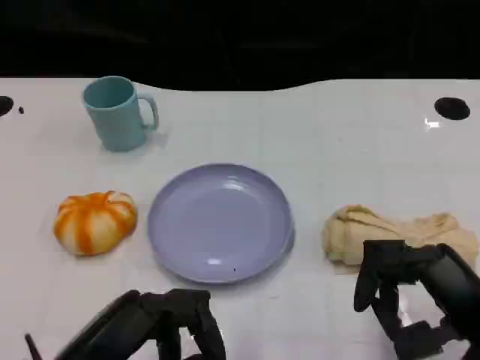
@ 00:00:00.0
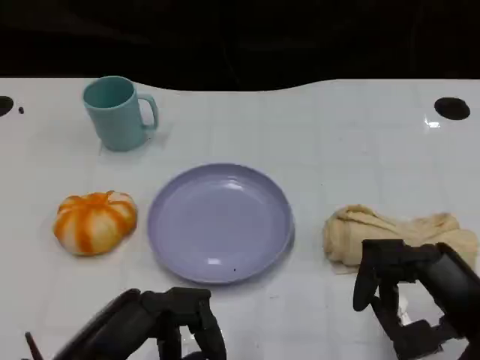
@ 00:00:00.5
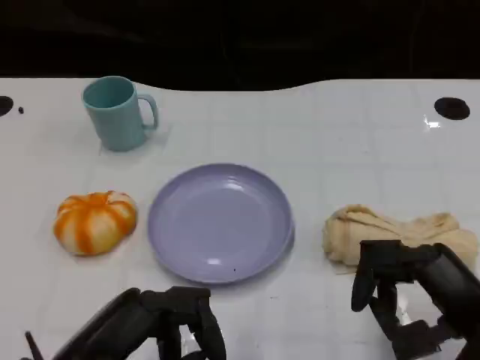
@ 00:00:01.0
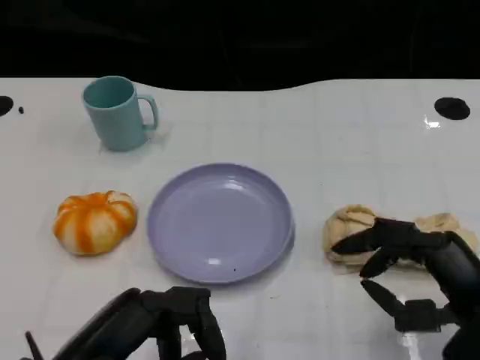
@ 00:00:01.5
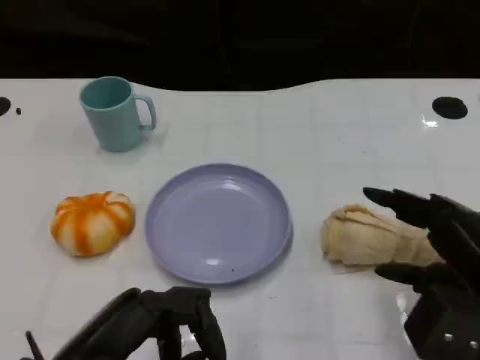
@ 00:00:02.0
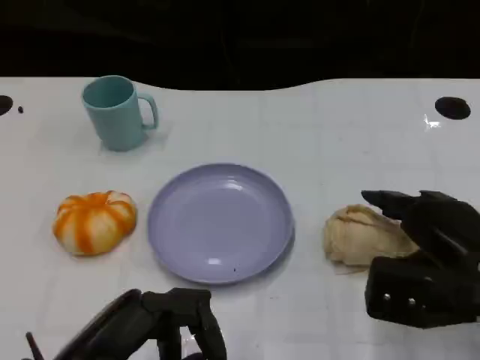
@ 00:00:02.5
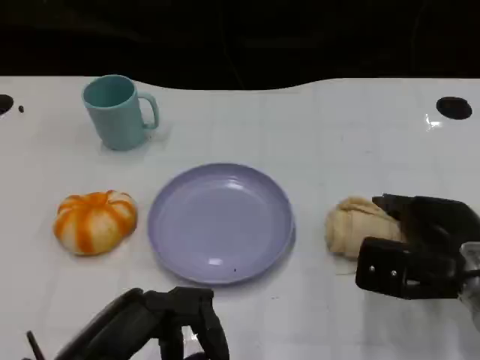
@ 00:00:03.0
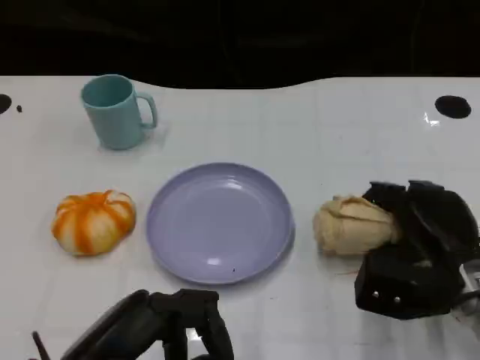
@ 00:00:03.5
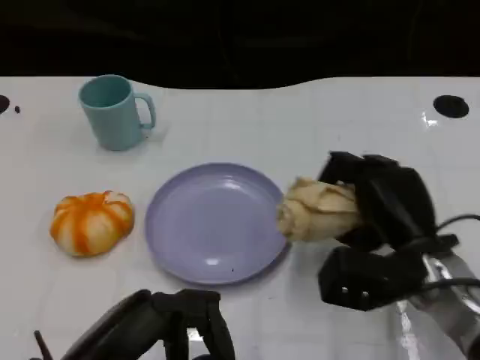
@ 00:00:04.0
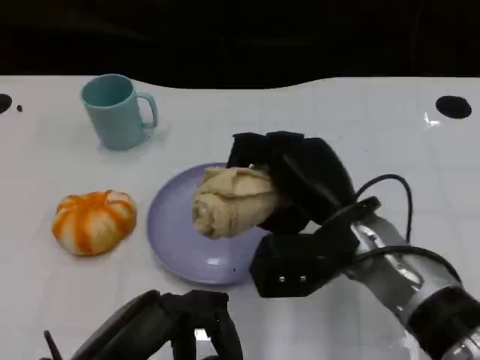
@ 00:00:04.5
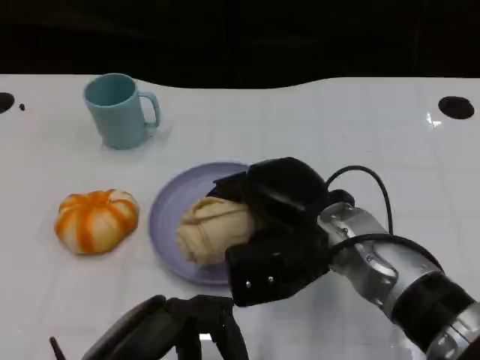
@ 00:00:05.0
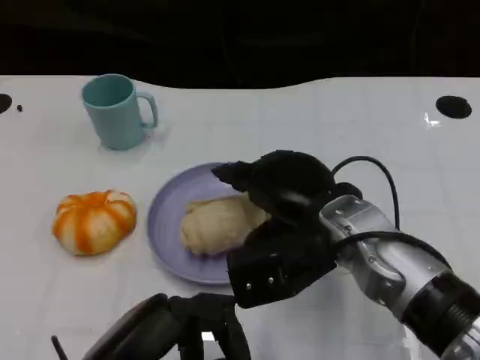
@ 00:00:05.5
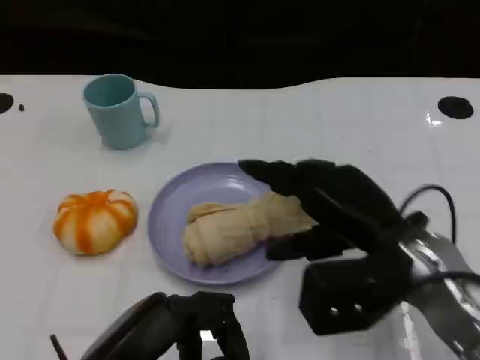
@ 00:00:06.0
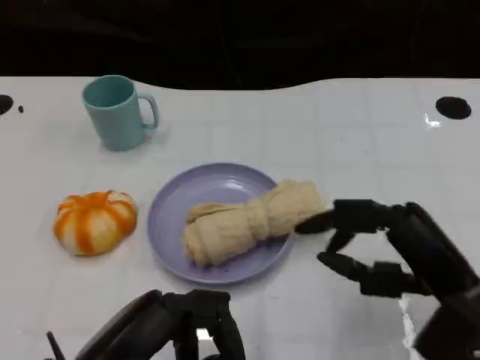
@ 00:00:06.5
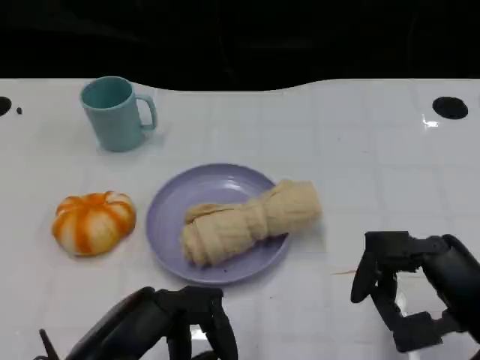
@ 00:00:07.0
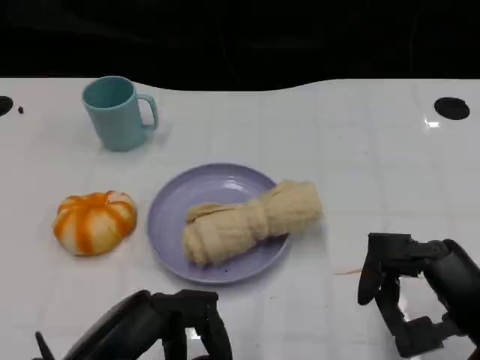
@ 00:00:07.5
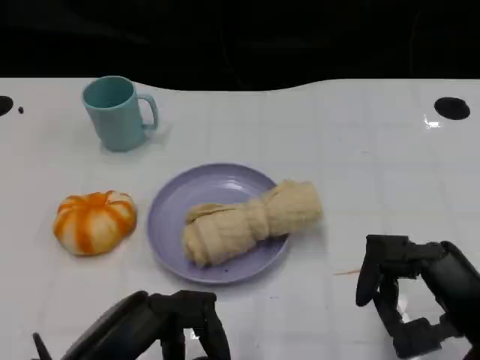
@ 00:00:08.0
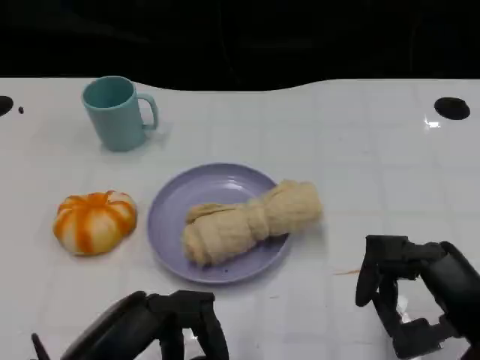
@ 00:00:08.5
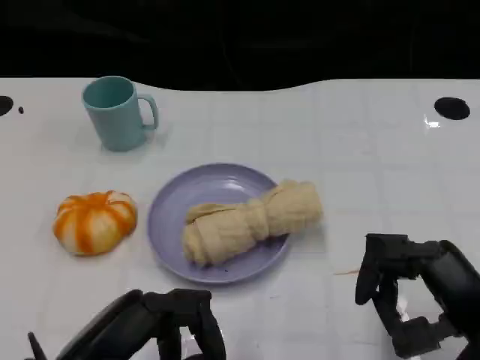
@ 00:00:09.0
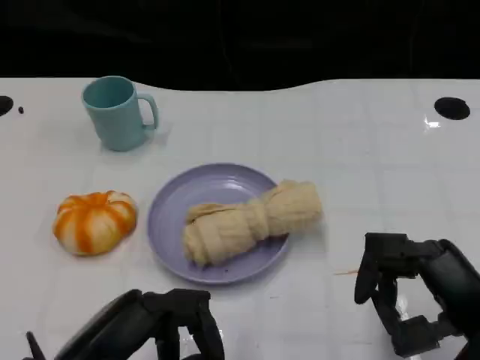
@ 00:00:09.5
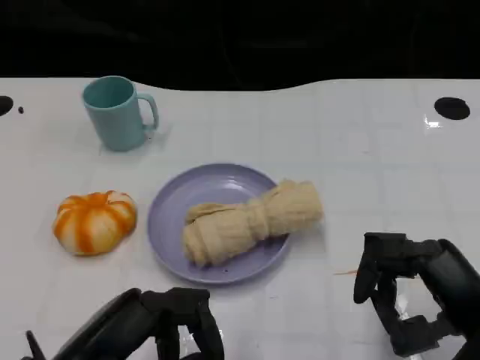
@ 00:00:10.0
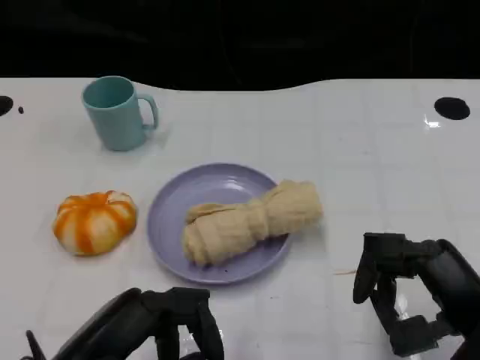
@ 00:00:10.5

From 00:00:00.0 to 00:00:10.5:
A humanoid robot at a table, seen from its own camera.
Task of the whole recording: Grasp the towel on the left side of the plate with the left hand and place it into the plate.
From 00:00:02.0 to 00:00:04.0: The right hand travels to the left and forward by roughly 10 cm.
From 00:00:04.0 to 00:00:06.5: The right hand heads backward and to the right, covering approximately 10 cm.
From 00:00:06.5 to 00:00:08.5: The hands stay close to where they were, moving slightly.
From 00:00:08.5 to 00:00:10.5: Both hands stay about where they are.

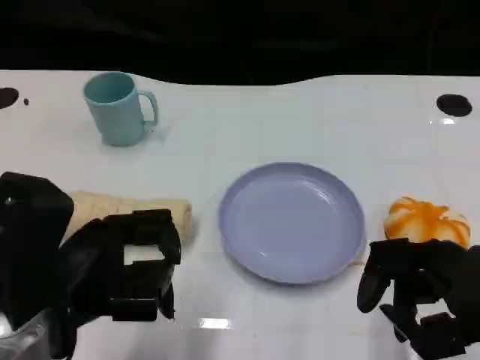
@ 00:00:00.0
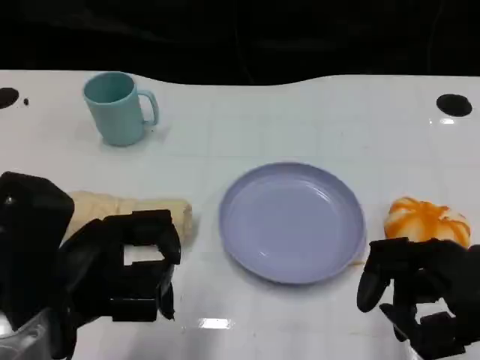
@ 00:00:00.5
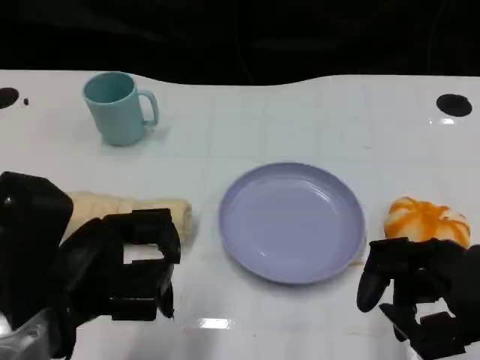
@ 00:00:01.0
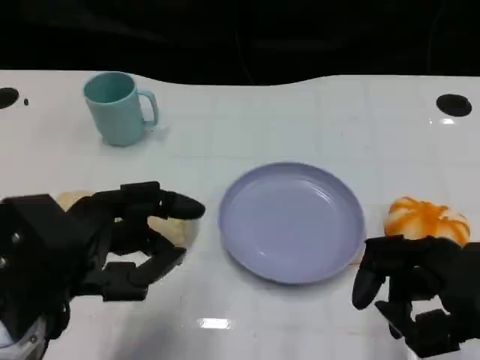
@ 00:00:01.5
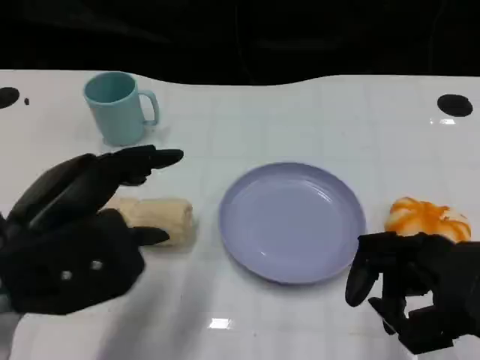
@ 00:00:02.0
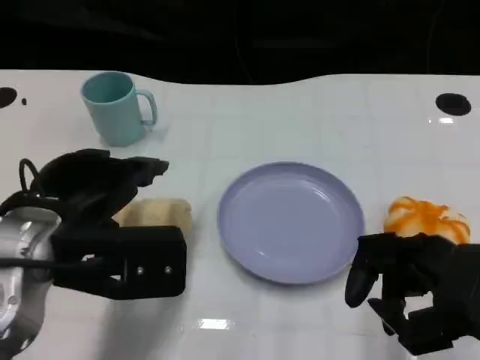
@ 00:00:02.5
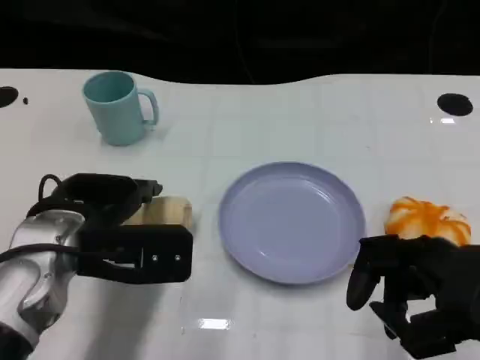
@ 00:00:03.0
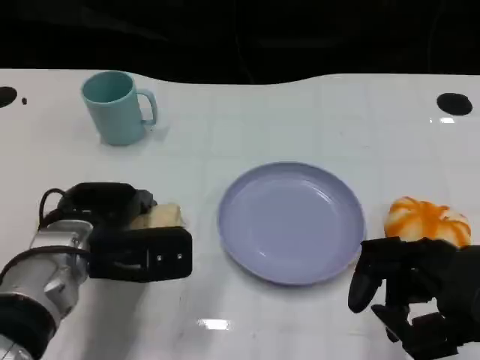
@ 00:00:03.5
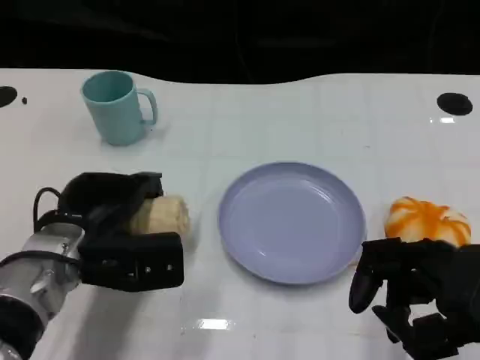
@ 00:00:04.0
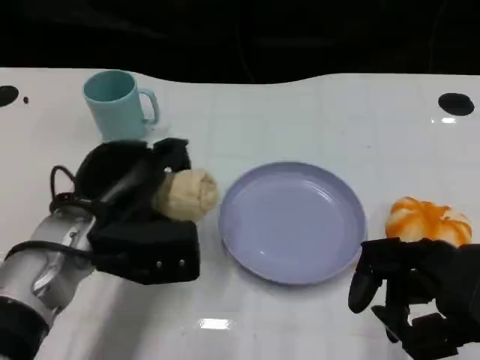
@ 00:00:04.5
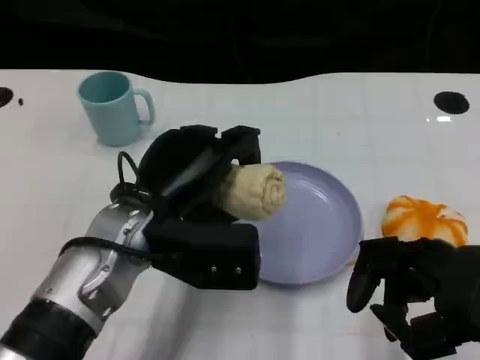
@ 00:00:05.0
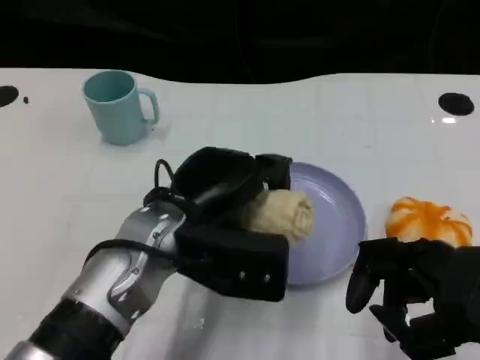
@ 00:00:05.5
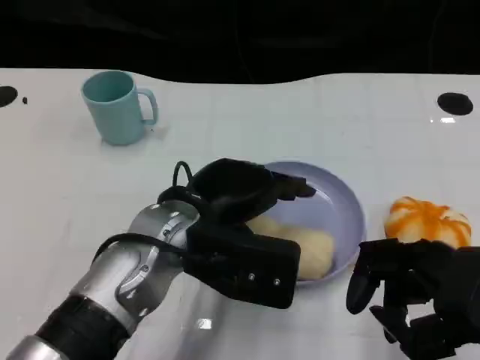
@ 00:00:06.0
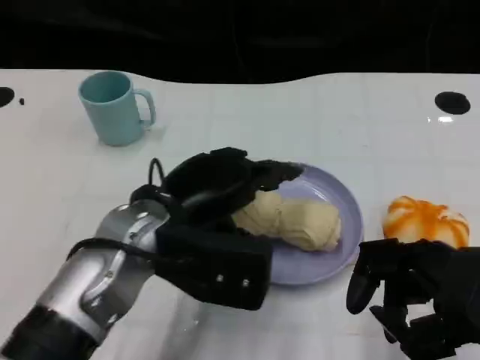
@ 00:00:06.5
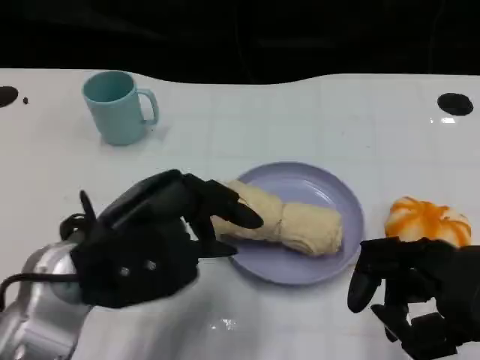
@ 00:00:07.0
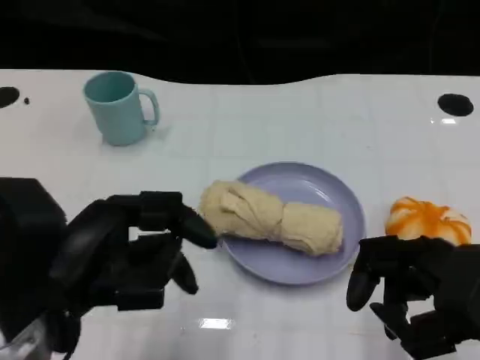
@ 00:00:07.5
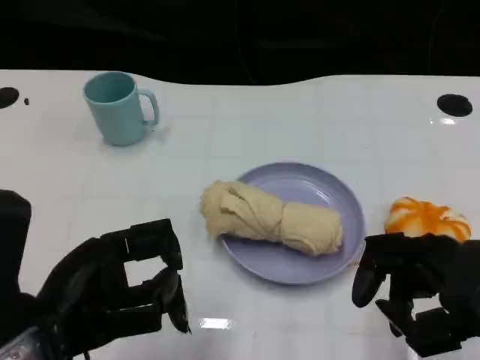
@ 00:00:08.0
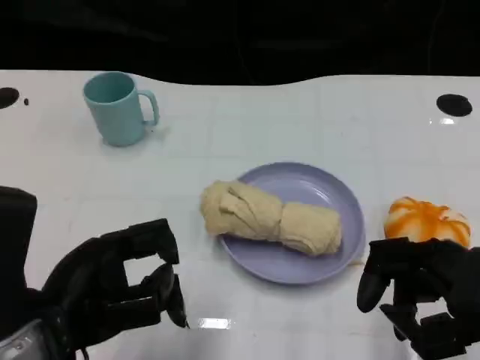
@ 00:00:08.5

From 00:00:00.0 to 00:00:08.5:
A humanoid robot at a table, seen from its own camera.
Task of the whole recording: Grasp the towel on the left side of the plate with the left hand and place it into the plate.
From 00:00:02.0 to 00:00:04.0: The left hand is displaced downward and forward by some 15 cm.
From 00:00:04.0 to 00:00:06.5: The left hand is displaced to the right and upward by some 10 cm.
From 00:00:06.5 to 00:00:08.5: The left hand shifts approximately 15 cm backward and to the left.

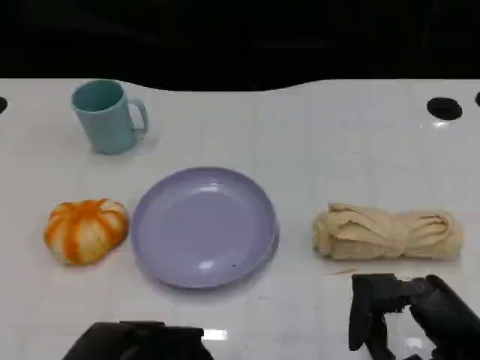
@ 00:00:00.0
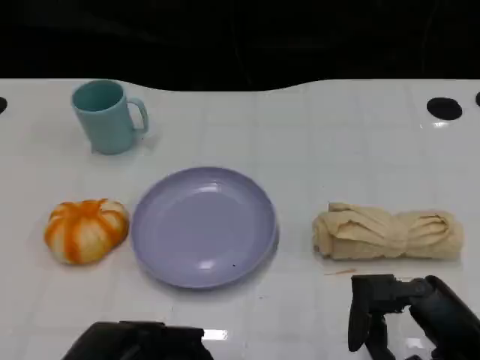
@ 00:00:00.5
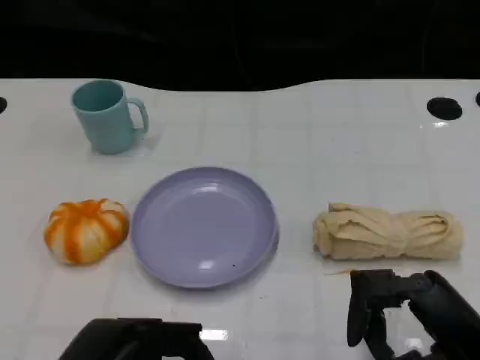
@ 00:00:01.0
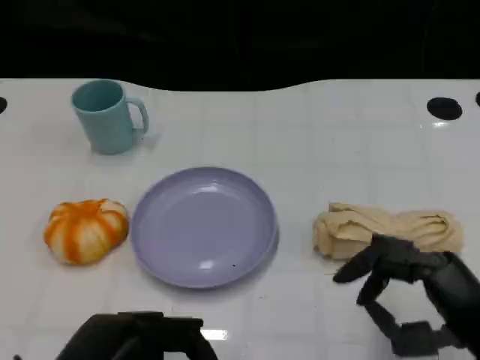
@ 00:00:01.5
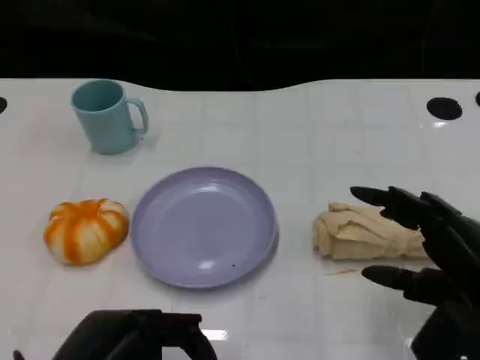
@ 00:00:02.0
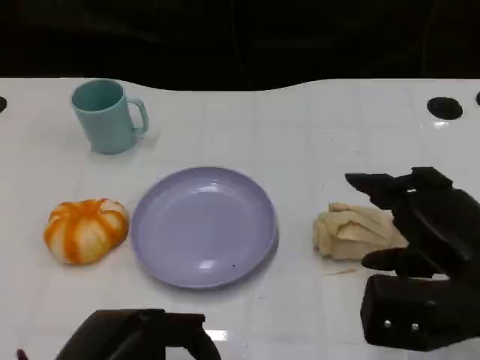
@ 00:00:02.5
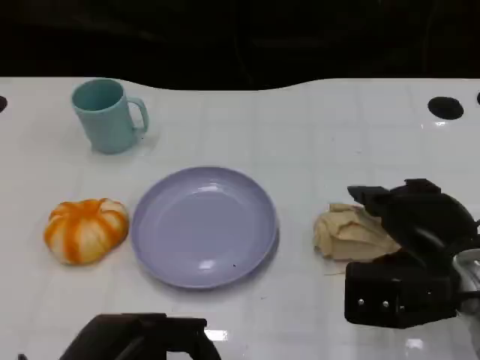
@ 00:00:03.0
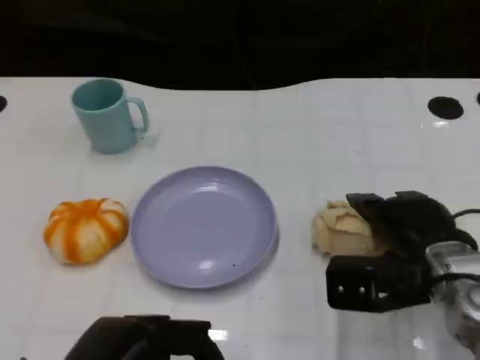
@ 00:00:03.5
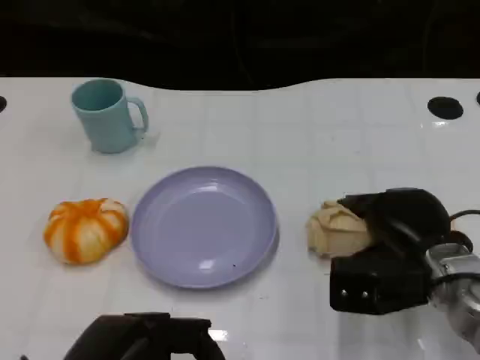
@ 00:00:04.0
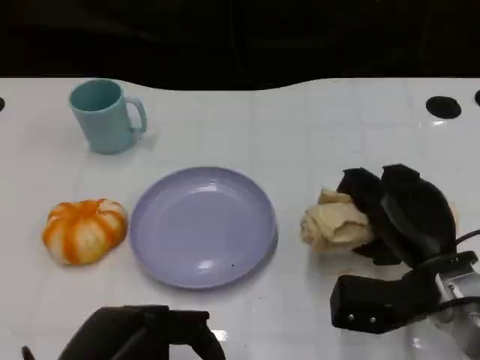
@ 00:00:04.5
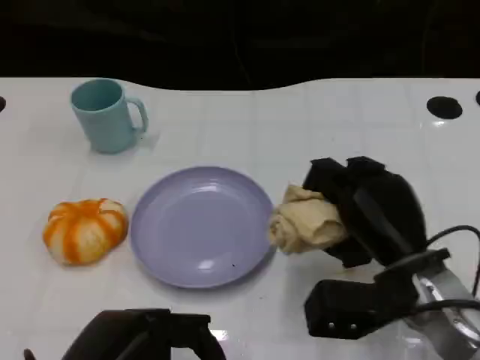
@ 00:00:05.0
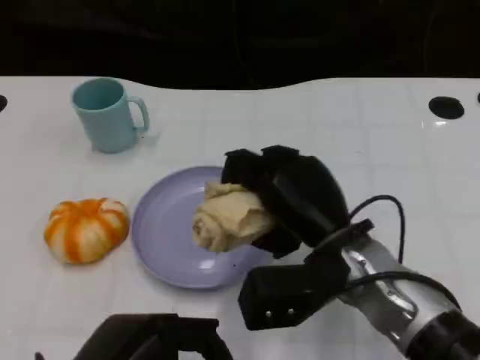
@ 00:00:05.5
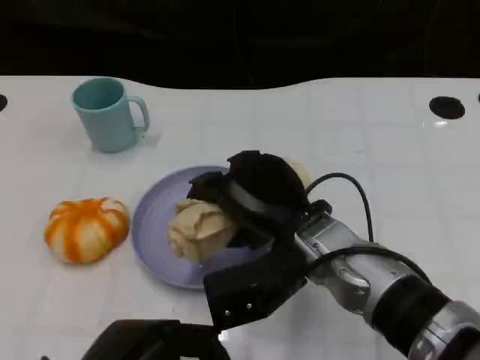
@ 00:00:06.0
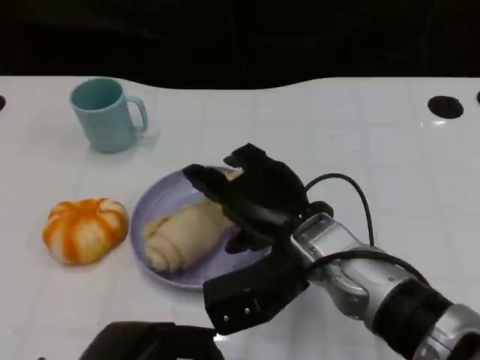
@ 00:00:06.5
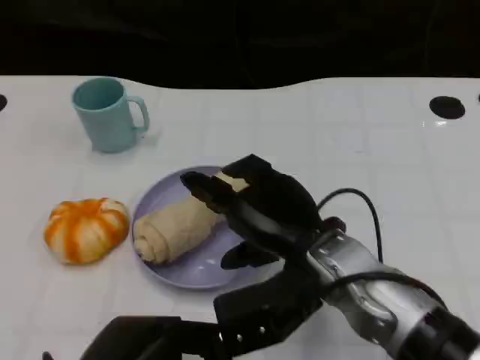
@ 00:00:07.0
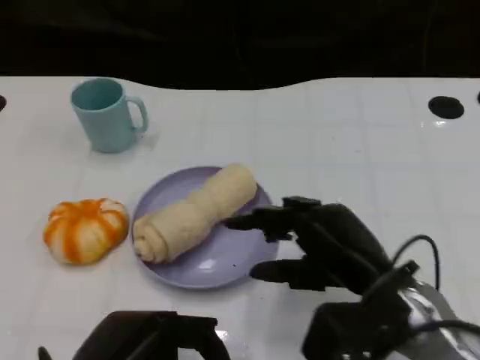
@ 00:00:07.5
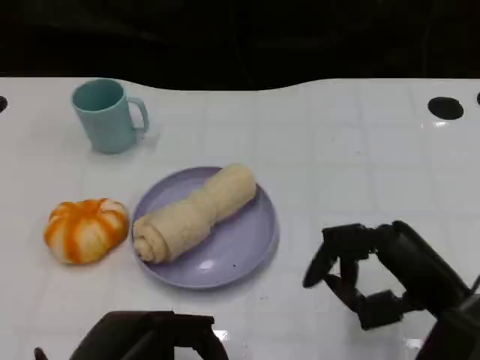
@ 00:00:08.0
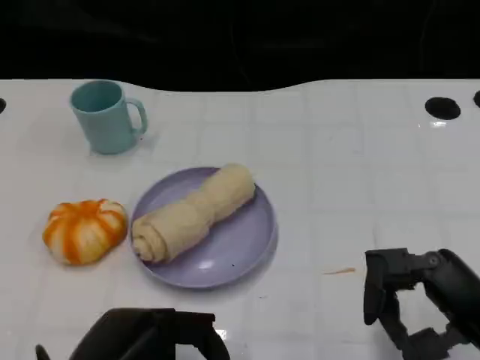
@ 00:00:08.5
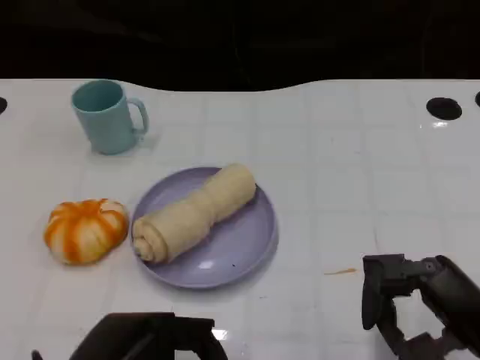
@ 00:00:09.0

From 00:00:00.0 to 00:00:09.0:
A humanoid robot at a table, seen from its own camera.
Task of the whole recording: Grasp the towel on the left side of the plate with the left hand and place it into the plate.
From 00:00:00.0 to 00:00:02.0: The right hand moves approximately 5 cm.
From 00:00:02.0 to 00:00:04.5: The right hand travels forward and downward by approximately 10 cm.
From 00:00:04.5 to 00:00:07.0: The right hand travels to the left and upward by about 10 cm.
From 00:00:07.0 to 00:00:09.0: The right hand travels to the right and backward by about 20 cm.
